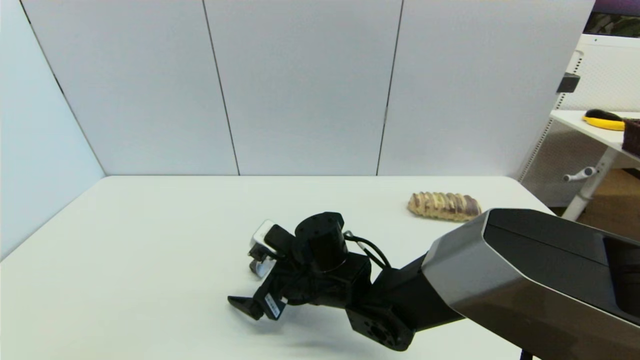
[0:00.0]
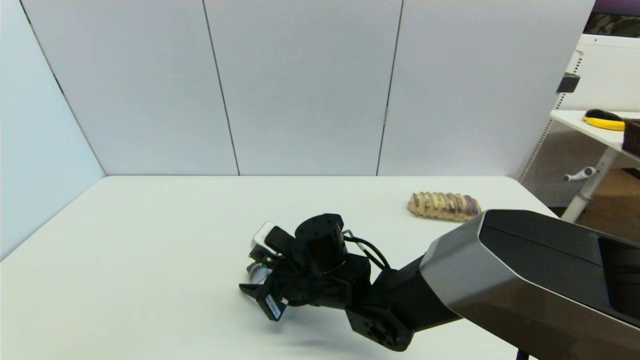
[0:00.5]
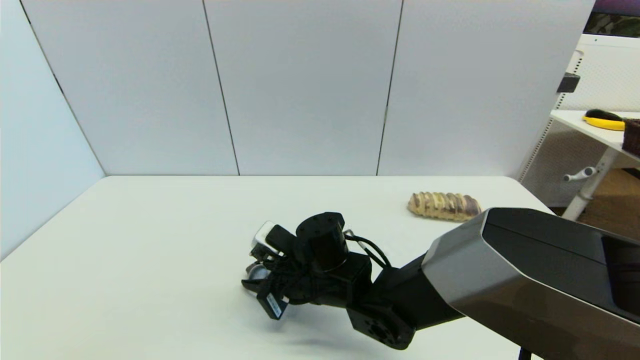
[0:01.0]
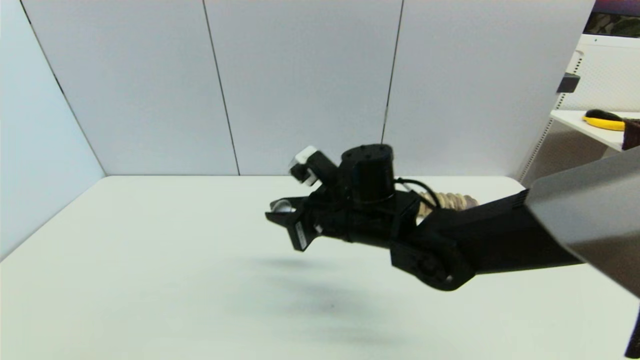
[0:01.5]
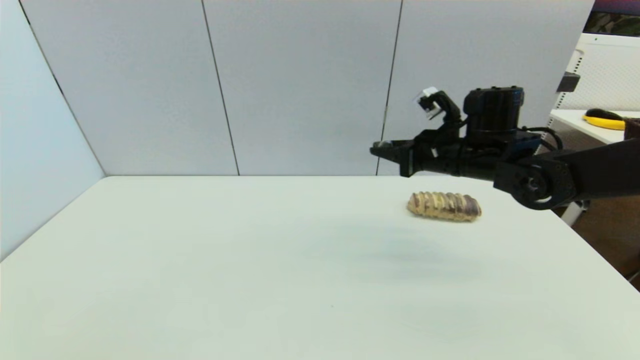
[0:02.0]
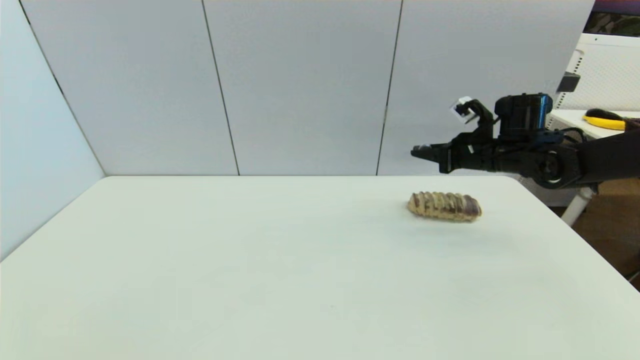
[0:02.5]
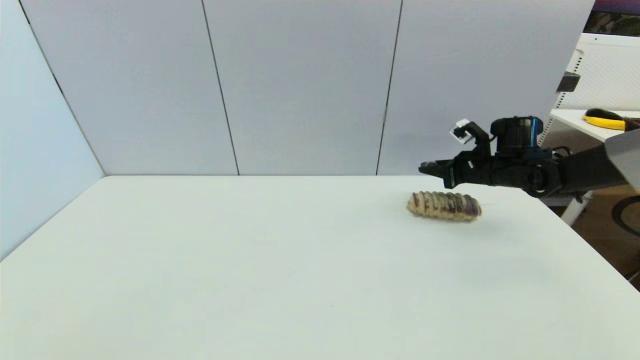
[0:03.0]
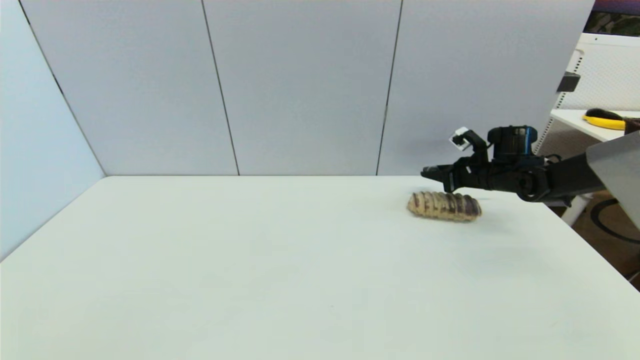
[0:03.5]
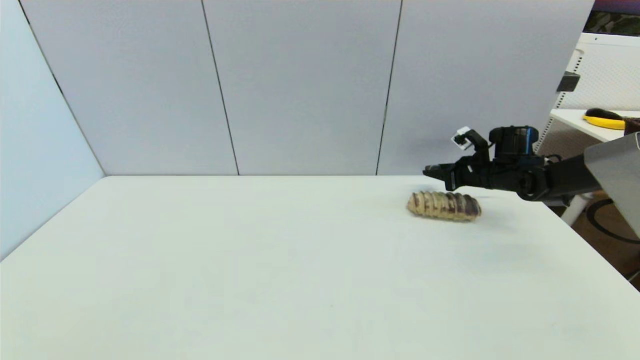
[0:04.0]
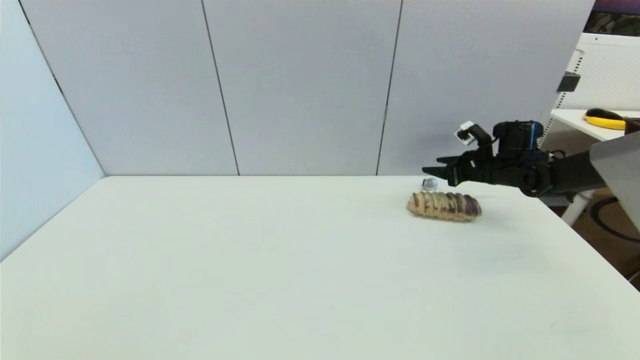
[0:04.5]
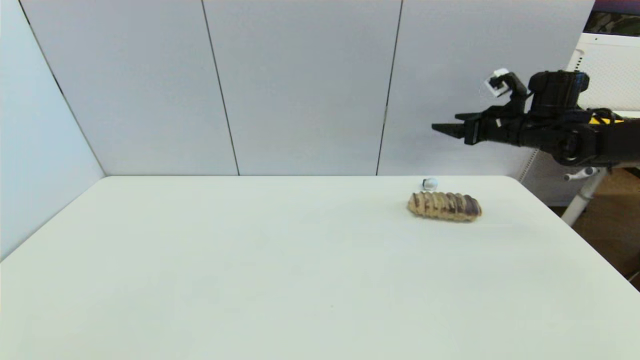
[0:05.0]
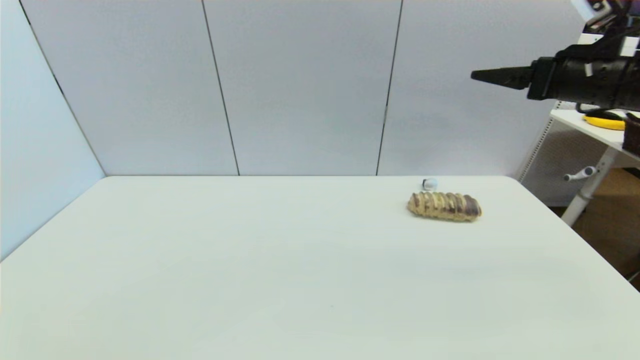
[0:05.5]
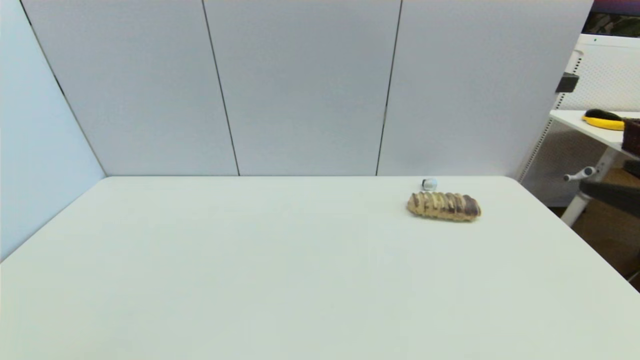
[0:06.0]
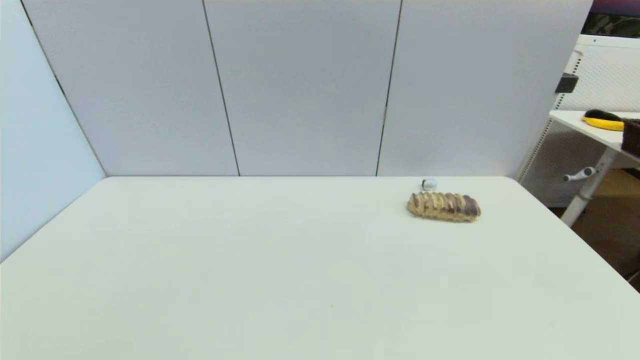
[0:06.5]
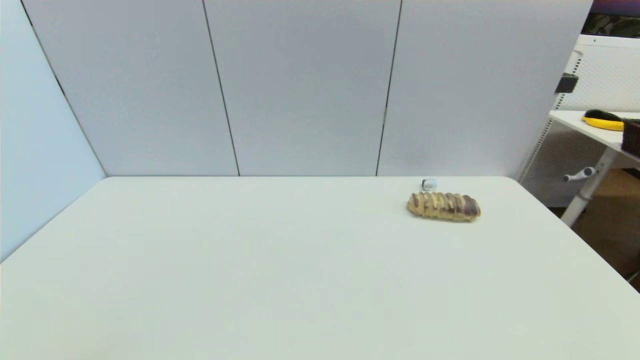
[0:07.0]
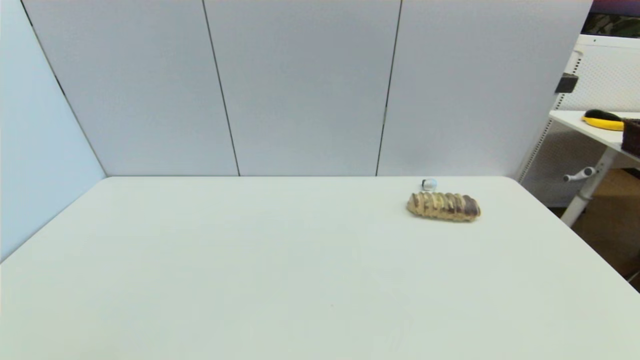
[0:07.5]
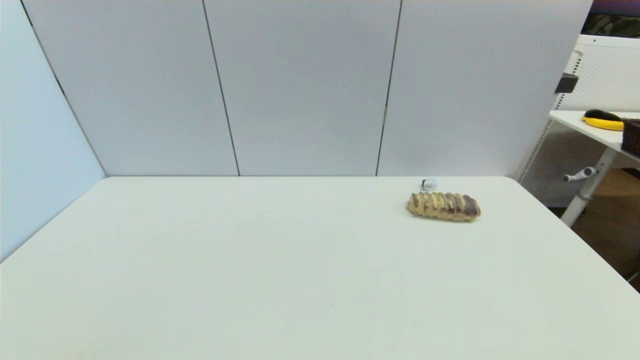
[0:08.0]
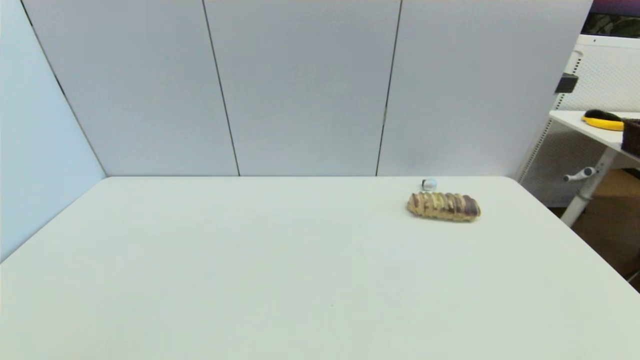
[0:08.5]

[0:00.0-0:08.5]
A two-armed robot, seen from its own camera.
Step, 0:01.5 to 0:04.5: Place the coffee capsule on the table with right gripper.
0:00.0 to 0:02.0: The right gripper shifts approximately 30 cm to the right, upward and forward, and closes.
0:02.0 to 0:04.0: The right gripper moves to the right, forward and downward, approximately 20 cm.
0:04.0 to 0:06.5: The right gripper shifts some 50 cm backward, and opens.

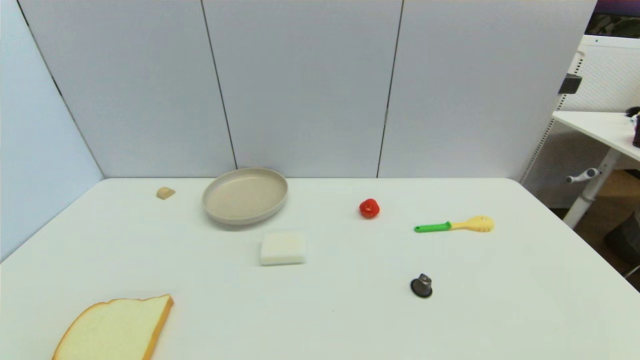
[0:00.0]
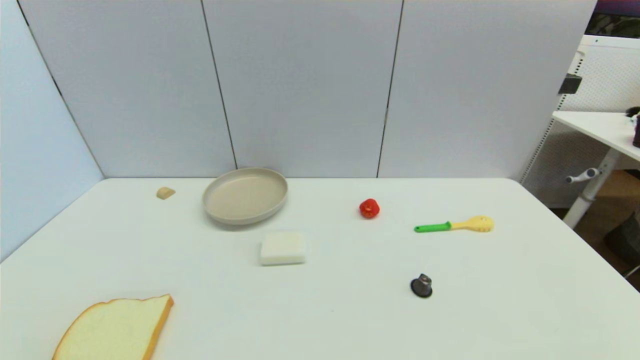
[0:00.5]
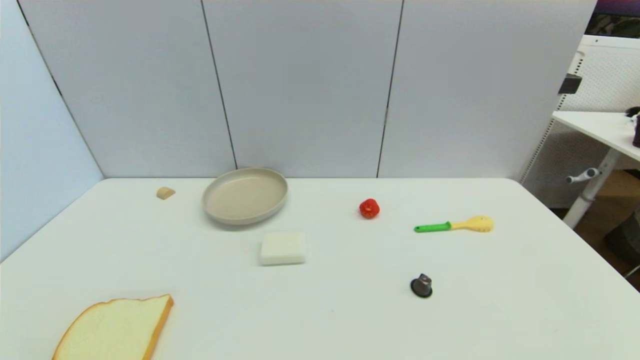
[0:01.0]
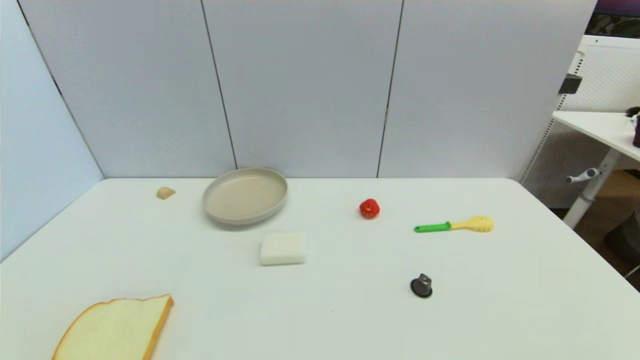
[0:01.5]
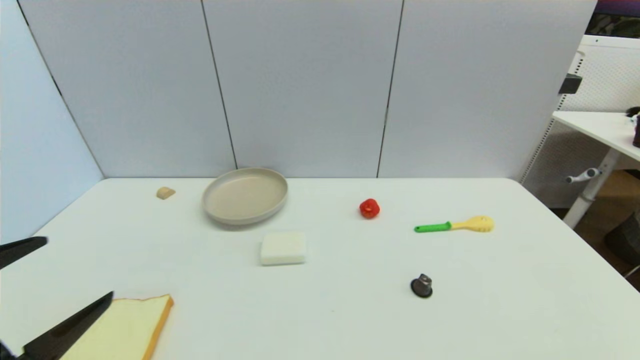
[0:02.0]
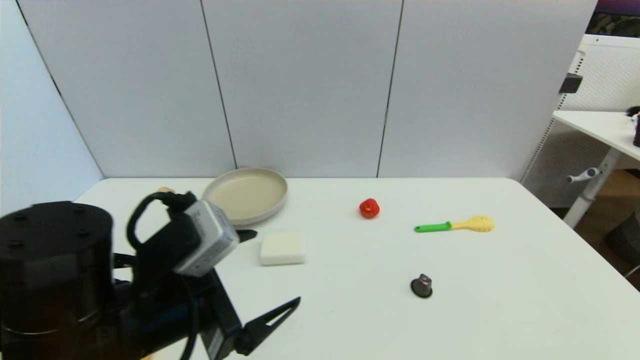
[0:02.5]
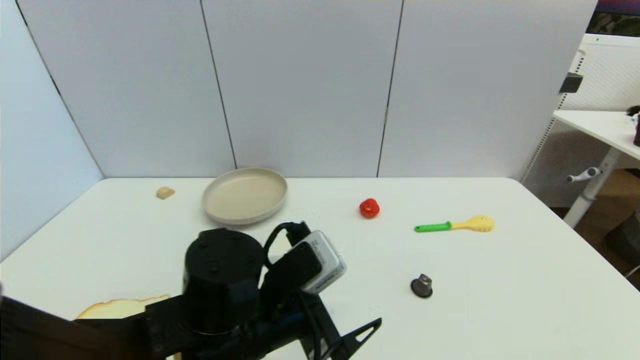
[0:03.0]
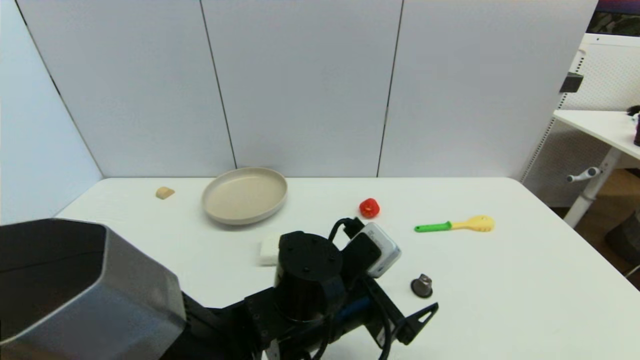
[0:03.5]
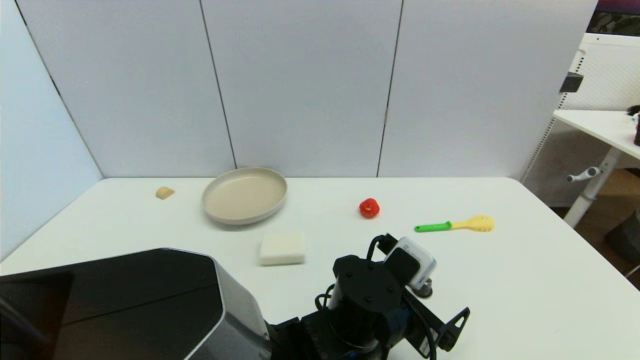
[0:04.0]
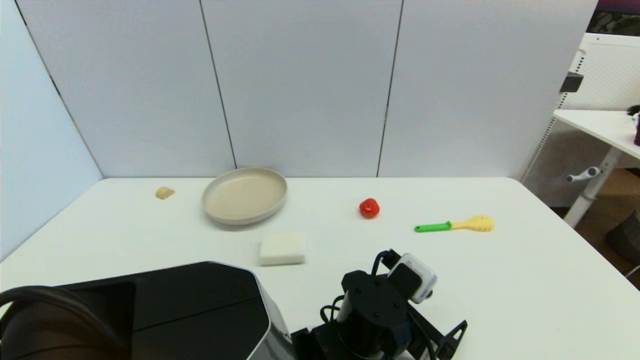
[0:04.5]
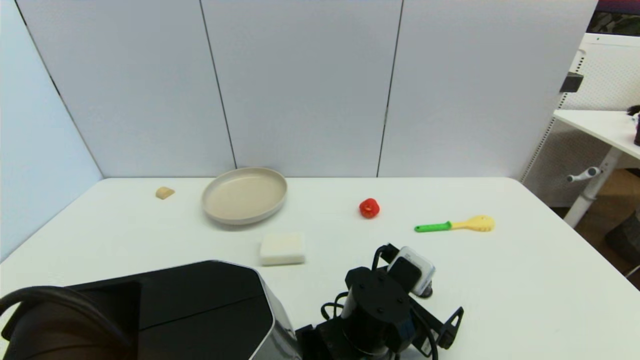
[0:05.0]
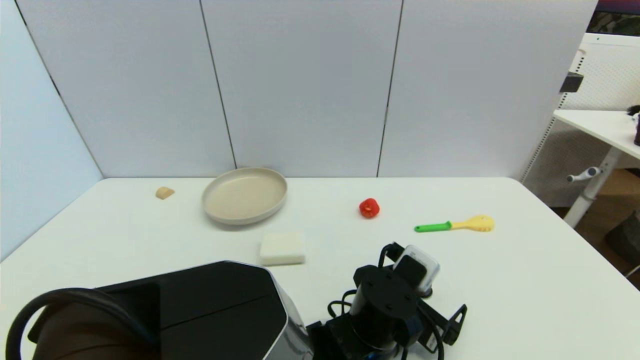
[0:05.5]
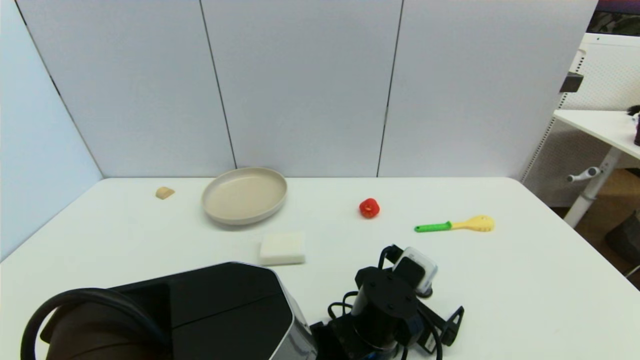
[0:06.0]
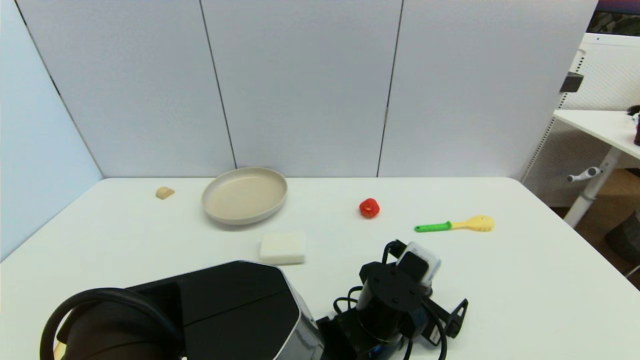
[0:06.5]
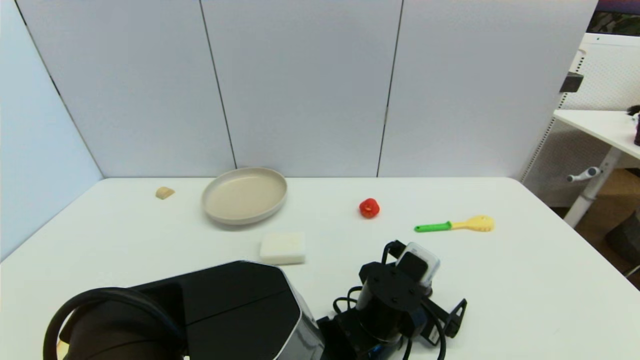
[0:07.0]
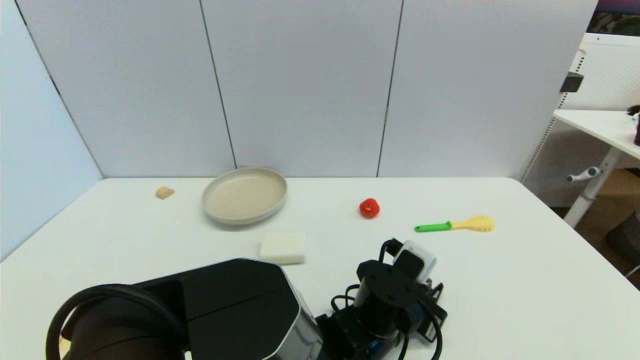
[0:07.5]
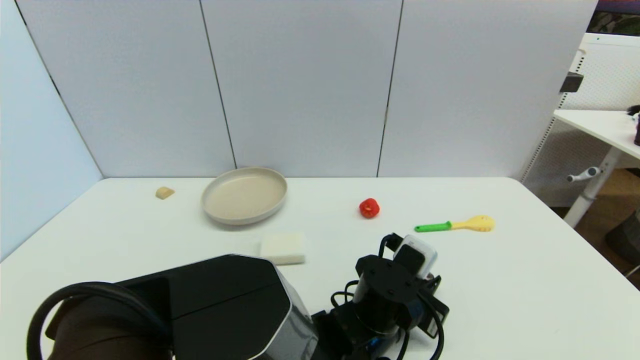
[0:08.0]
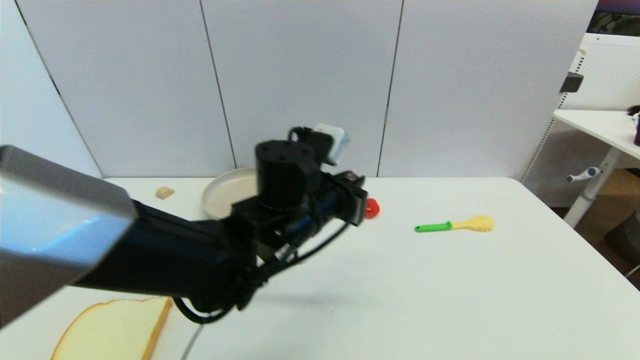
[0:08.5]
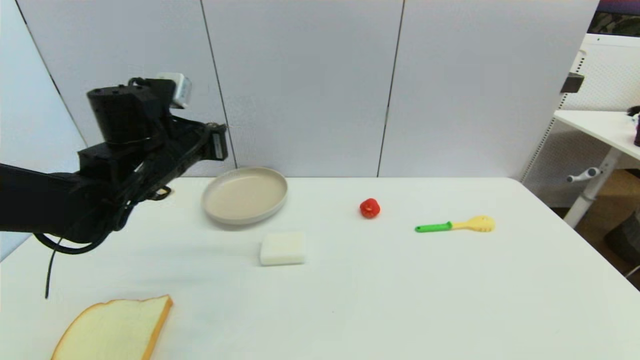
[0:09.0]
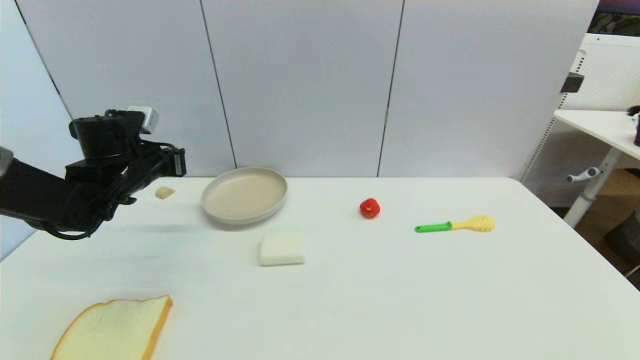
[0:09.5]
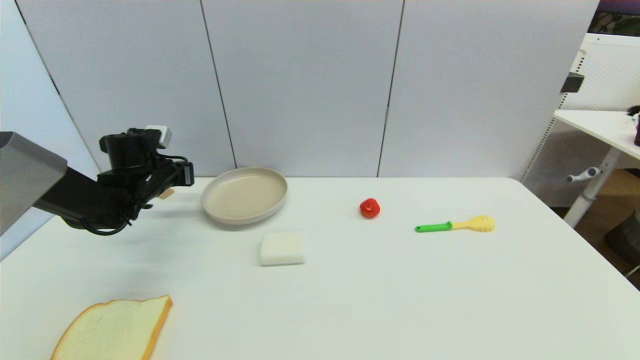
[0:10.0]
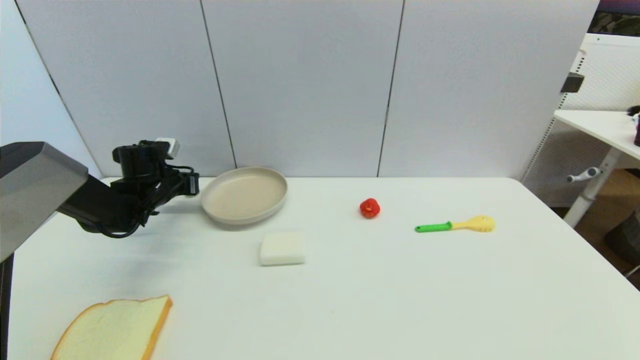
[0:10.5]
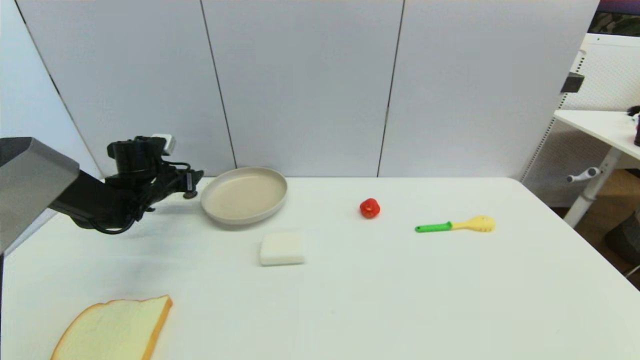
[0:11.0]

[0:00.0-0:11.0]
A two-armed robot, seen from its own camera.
Step, 0:02.0 to 0:07.5: Grasp the coffee capsule with left gripper.
Step, 0:08.0 to 0:10.5: Place the coffee capsule on the table with left gripper.
0:00.0 to 0:02.0: The left gripper is displaced upward and forward by roughly 15 cm.
0:02.0 to 0:03.5: The left gripper is displaced to the right and forward by some 30 cm.
0:03.5 to 0:05.5: The left gripper goes approximately 10 cm to the right and downward.
0:05.5 to 0:07.5: The left gripper closes.
0:07.5 to 0:09.0: The left gripper heads to the left and upward, covering about 35 cm.
0:09.0 to 0:11.0: The left gripper heads downward, to the left and forward, covering about 20 cm, and opens.
